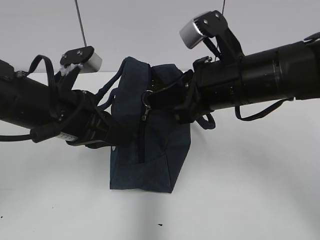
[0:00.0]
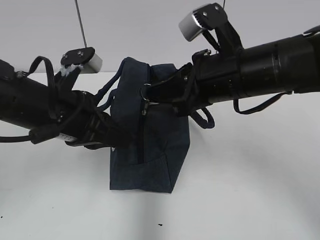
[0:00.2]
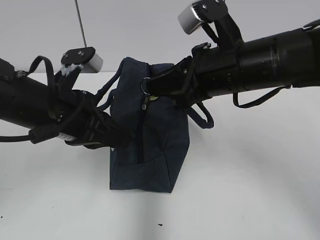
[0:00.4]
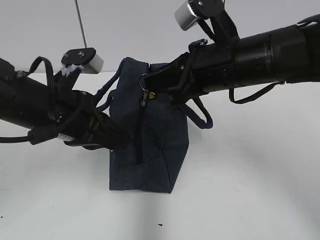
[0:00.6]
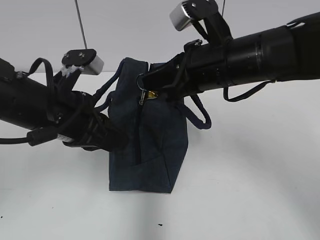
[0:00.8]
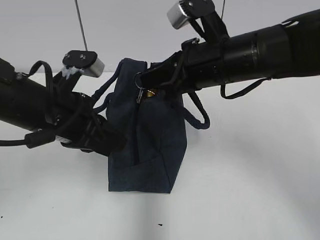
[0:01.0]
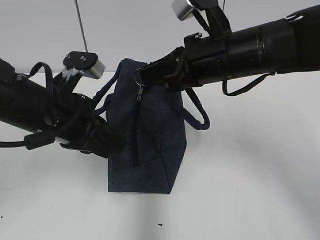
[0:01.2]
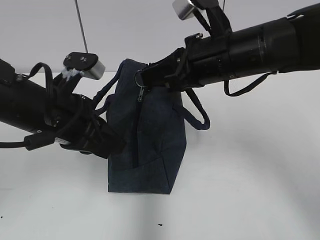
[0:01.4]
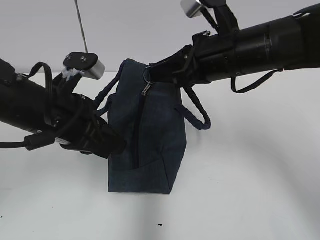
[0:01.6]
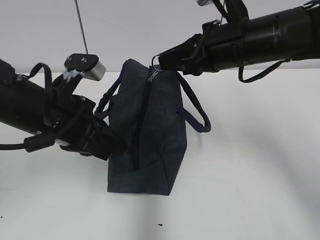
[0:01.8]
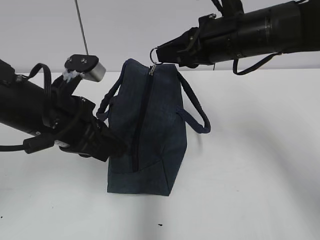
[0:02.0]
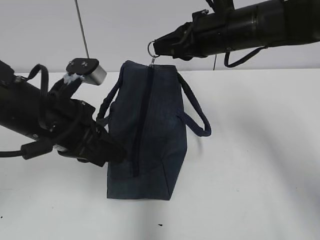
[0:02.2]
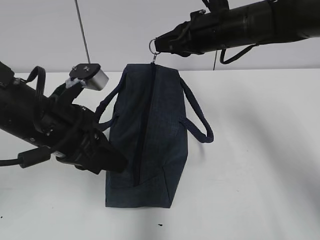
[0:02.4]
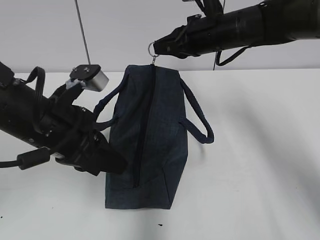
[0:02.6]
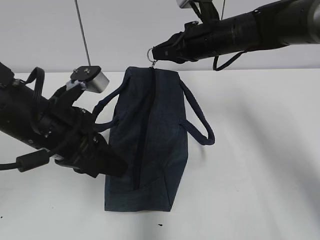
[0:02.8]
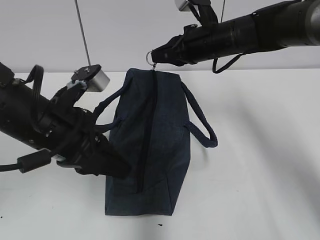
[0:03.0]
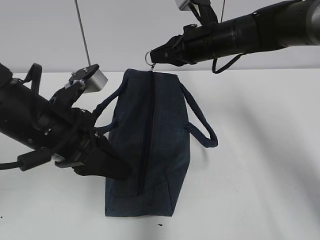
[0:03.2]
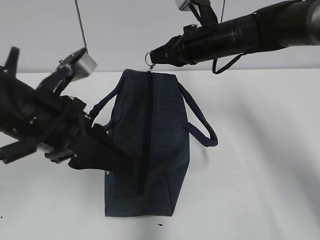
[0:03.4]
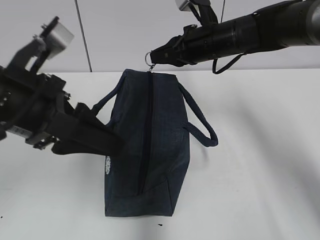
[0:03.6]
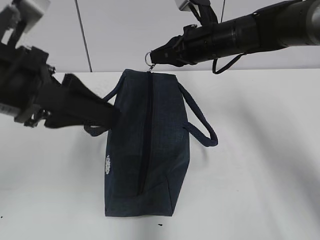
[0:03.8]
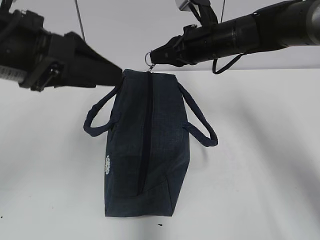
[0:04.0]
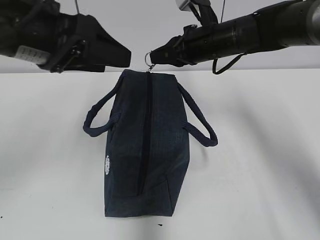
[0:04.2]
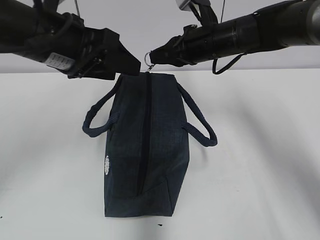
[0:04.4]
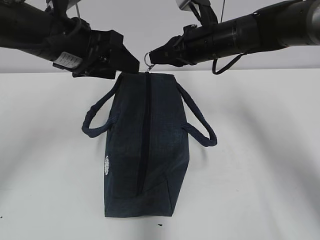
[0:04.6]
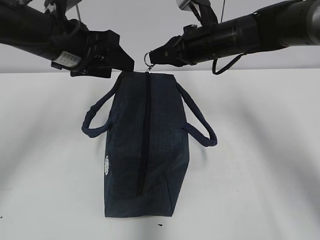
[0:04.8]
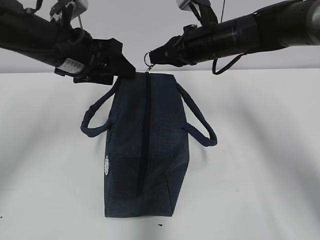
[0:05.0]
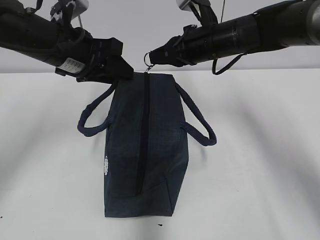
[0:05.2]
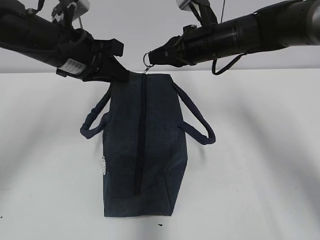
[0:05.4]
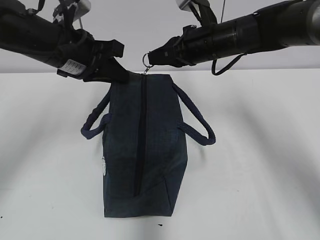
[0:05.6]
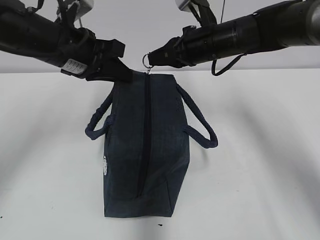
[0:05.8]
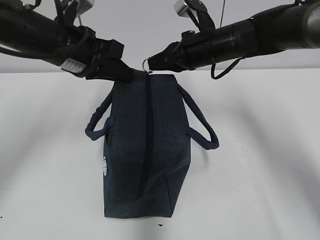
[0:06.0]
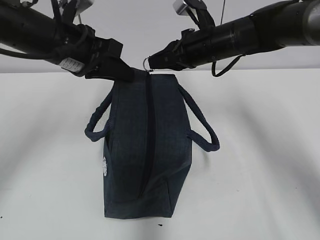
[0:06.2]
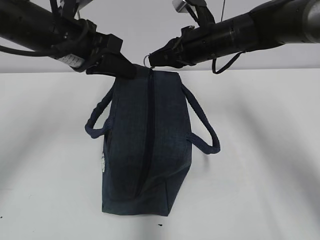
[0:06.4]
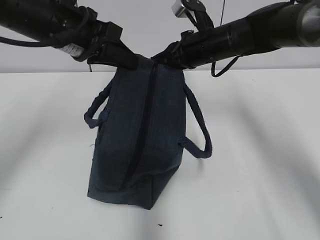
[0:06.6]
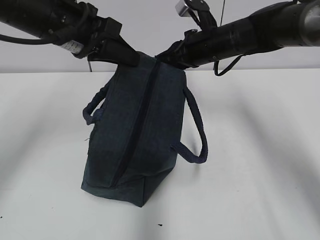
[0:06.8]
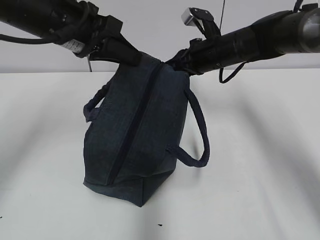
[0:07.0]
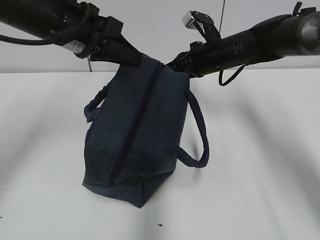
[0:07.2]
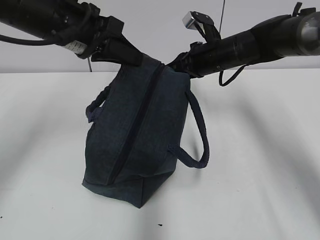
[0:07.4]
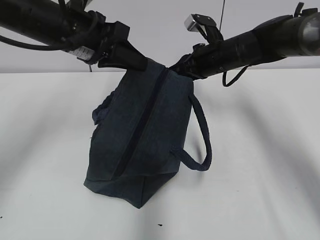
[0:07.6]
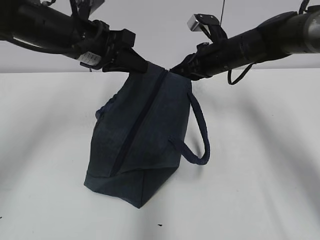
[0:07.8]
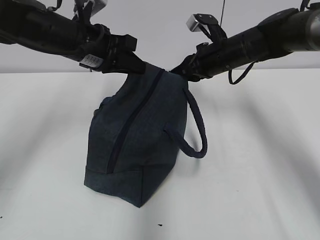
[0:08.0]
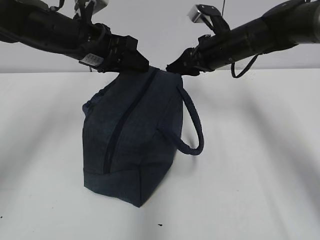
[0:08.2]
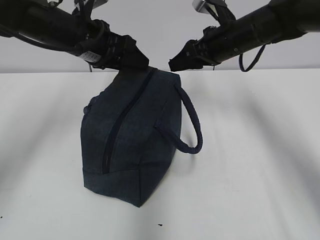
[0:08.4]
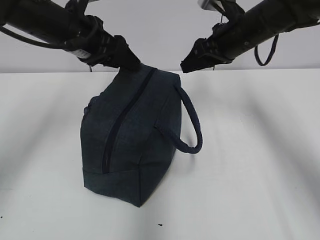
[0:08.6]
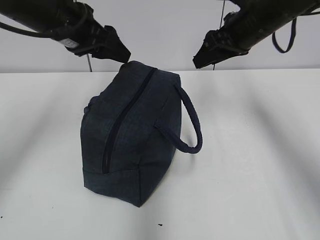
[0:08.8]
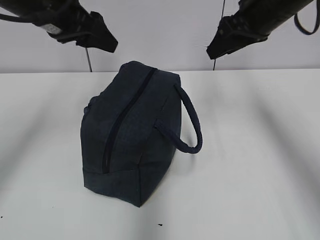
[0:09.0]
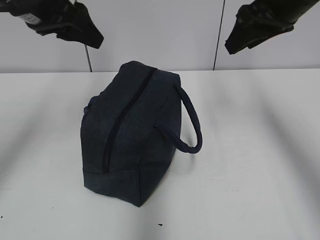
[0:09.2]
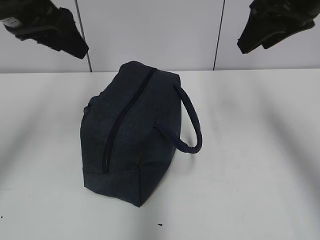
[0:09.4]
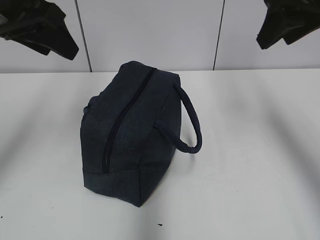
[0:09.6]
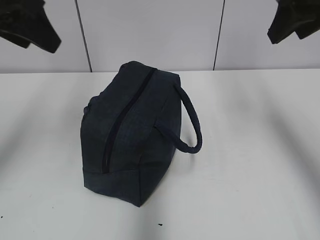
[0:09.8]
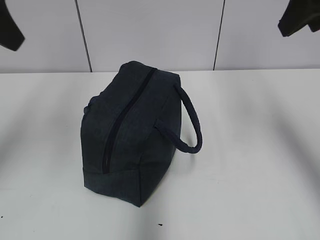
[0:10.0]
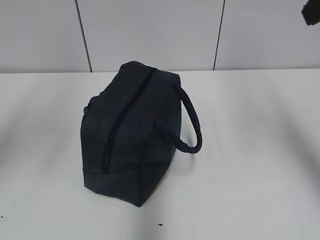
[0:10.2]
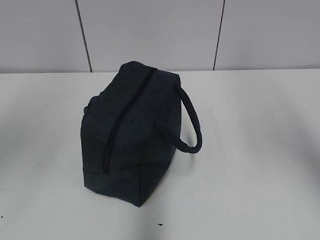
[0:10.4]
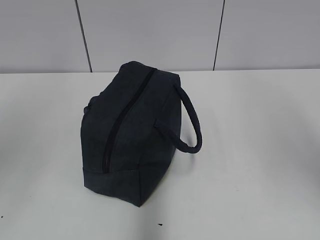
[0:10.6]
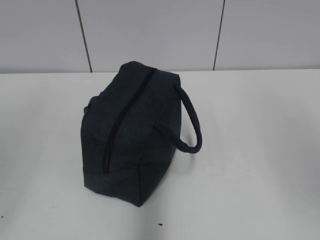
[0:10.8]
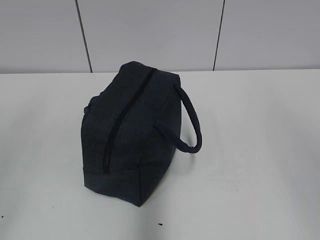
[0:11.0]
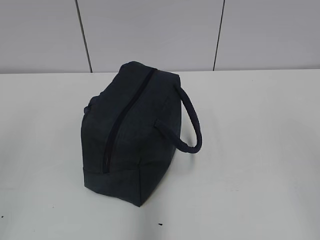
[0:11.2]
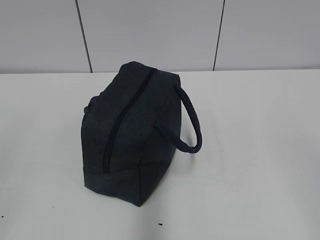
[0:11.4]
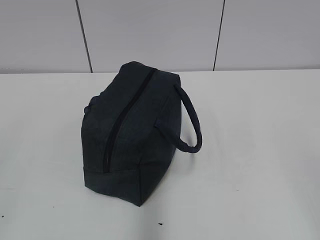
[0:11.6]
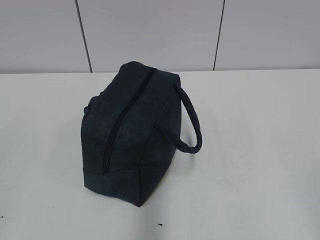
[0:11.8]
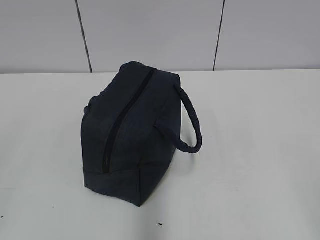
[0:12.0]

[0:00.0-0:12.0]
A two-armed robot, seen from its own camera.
0:00.0 to 0:01.6: The grippers move only a little.
0:01.6 to 0:03.0: The right gripper moves forward, approximately 10 cm.
0:03.0 to 0:04.4: The left gripper is displaced upward and forward by approximately 10 cm, and opens.
0:04.4 to 0:06.0: The left gripper shifts by roughly 5 cm, and closes up.
0:06.0 to 0:07.6: The right gripper ends up about 5 cm from where it was.
0:07.6 to 0:09.0: The right gripper travels upward and backward by some 15 cm, and opens its fingers, while the left gripper moves roughly 5 cm, and opens.
0:09.0 to 0:10.4: The left gripper travels backward, upward and to the left by about 25 cm, while the right gripper goes about 25 cm backward and upward.
0:10.4 to 0:12.0: The grippers both shift backward and downward by about 25 cm.

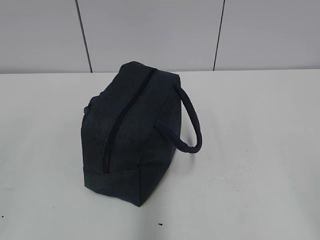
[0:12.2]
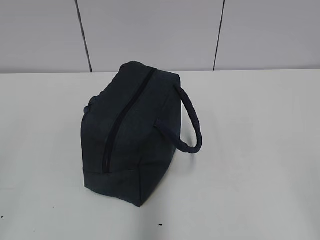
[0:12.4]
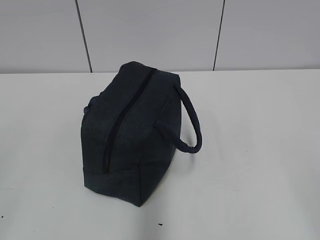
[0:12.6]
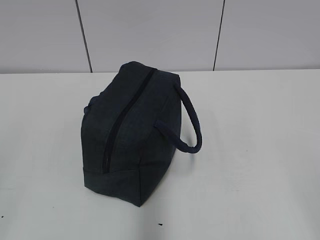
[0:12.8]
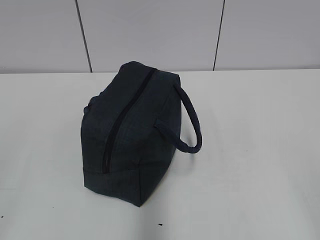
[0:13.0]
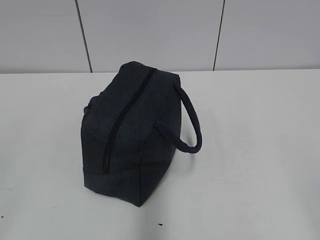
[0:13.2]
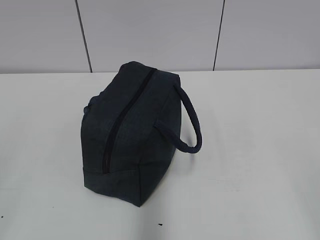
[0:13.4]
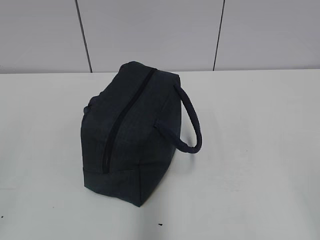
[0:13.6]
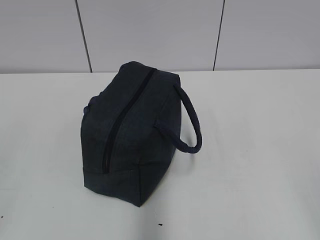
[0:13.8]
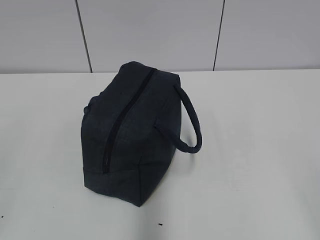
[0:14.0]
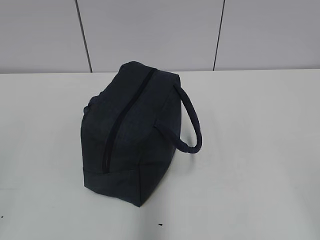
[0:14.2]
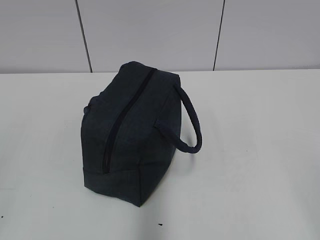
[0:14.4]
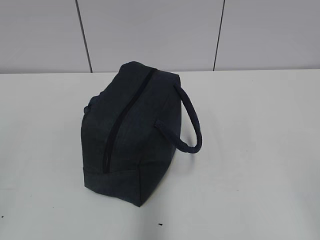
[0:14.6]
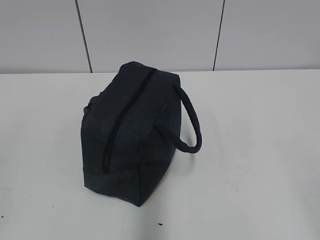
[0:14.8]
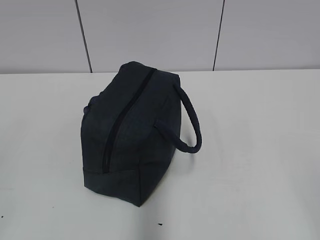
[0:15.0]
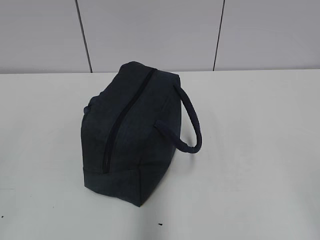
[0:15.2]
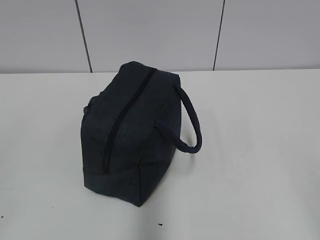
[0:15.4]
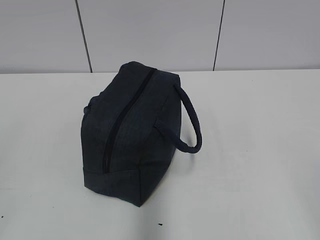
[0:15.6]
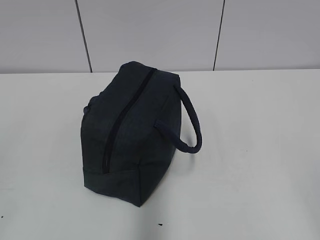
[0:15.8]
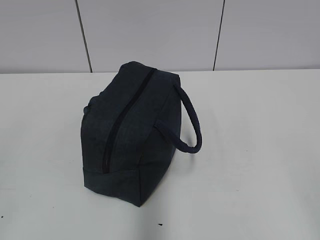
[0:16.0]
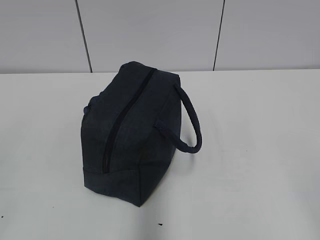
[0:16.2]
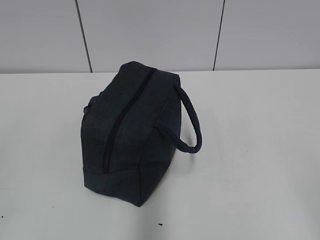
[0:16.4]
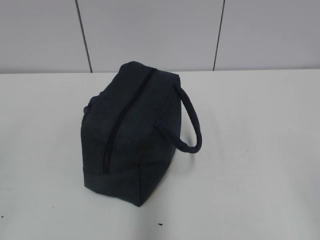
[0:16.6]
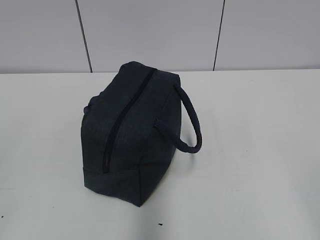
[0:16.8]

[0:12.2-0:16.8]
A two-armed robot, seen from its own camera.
0:12.2 to 0:13.8: Both grippers stay about where they are.
0:15.2 to 0:16.8: Both grippers stay about where they are.

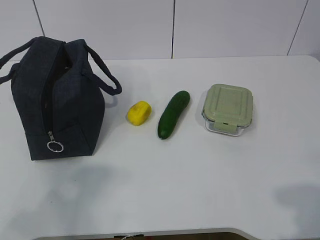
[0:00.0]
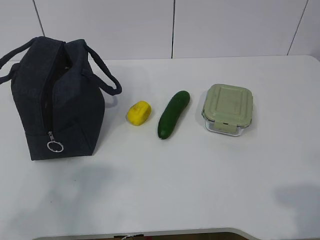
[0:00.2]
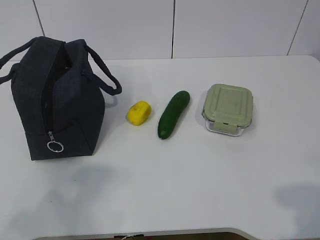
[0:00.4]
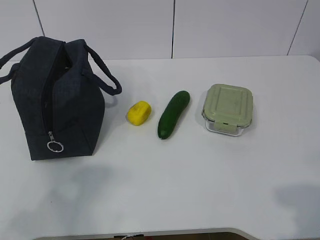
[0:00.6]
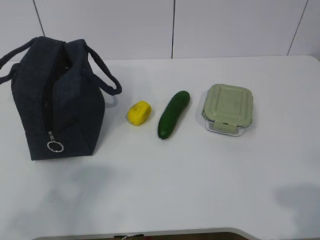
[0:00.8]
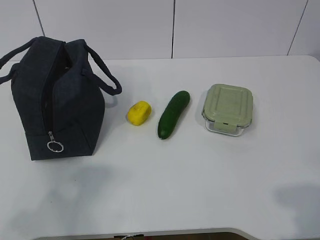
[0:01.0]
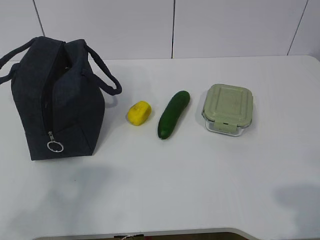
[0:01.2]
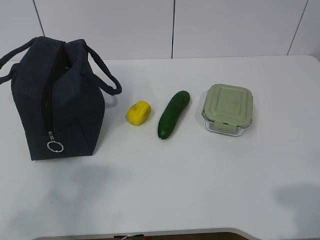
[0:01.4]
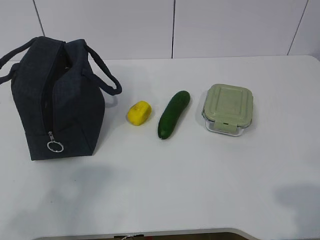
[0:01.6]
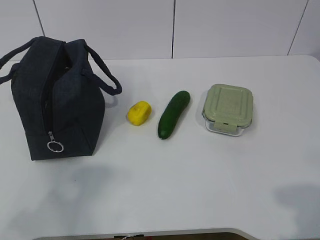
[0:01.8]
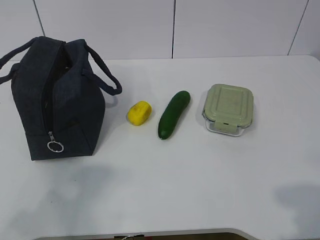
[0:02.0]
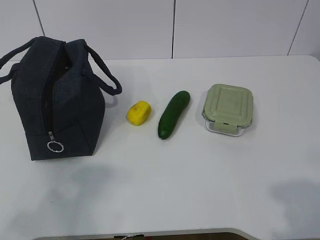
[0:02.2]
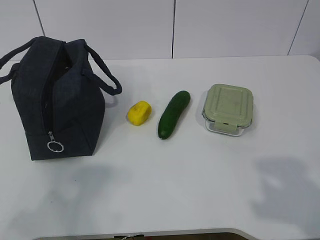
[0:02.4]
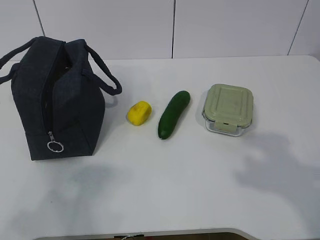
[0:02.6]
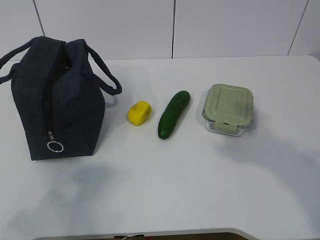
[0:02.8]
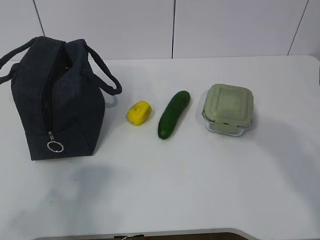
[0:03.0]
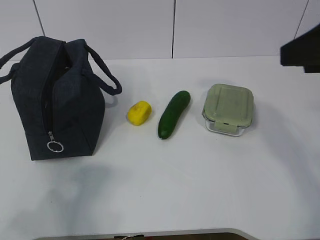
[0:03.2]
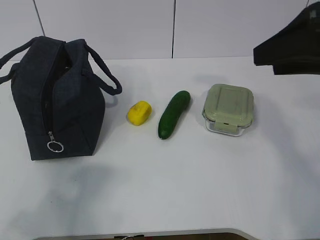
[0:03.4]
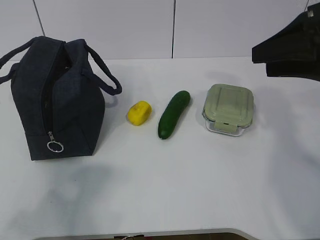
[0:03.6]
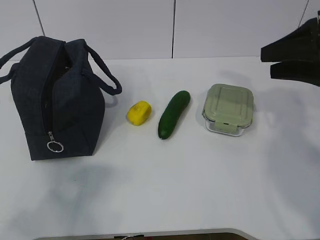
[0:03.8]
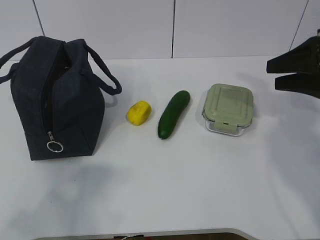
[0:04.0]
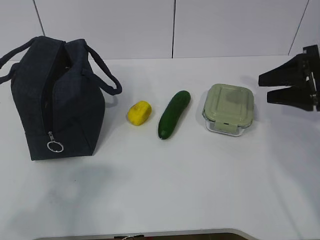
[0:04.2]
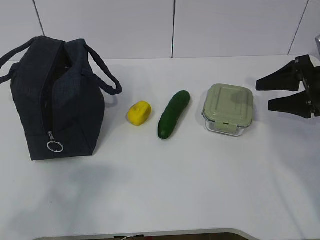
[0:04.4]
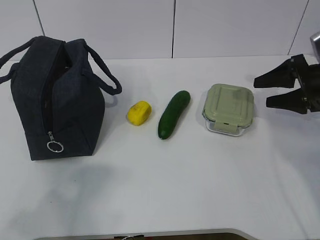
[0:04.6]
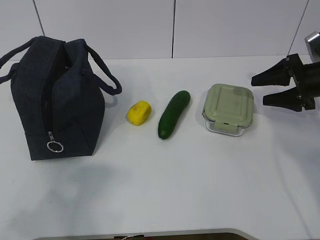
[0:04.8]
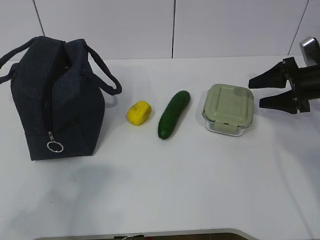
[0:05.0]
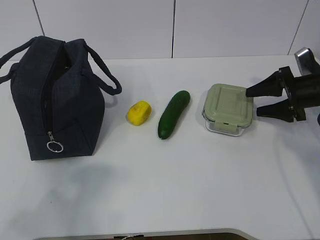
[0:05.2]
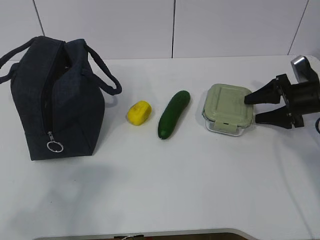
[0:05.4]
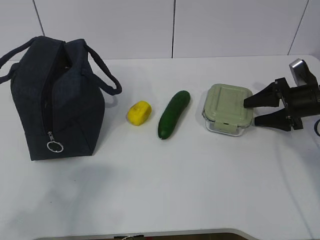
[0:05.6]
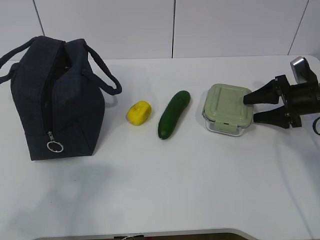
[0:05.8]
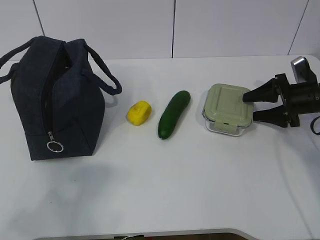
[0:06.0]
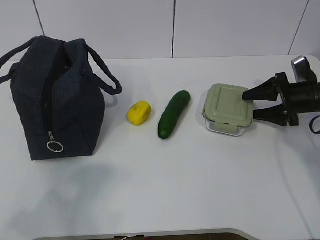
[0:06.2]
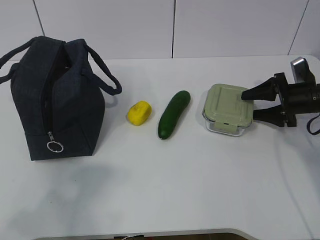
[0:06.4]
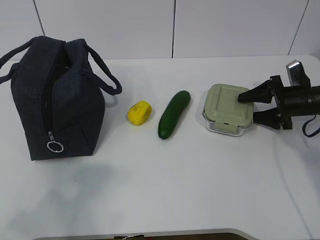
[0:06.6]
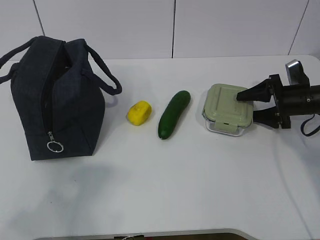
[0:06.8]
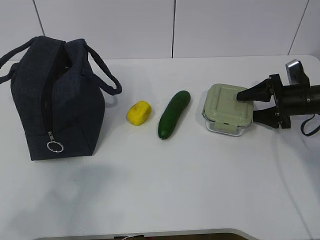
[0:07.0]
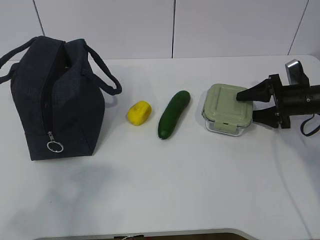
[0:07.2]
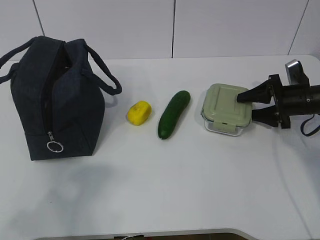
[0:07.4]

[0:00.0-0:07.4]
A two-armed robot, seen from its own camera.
Step, 0:00.0 to 0:07.2: Grab the lunch box with your right hand.
0:01.4 to 0:03.0: The right gripper goes roughly 20 cm forward and upward.
0:03.0 to 0:04.4: The right gripper shifts some 25 cm forward and downward.
0:04.4 to 0:06.0: The right gripper moves downward and forward, roughly 10 cm.
0:06.0 to 0:07.4: The grippers stay close to where they were, moving slightly.
